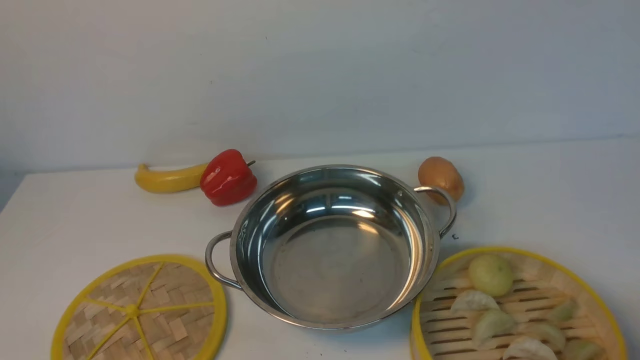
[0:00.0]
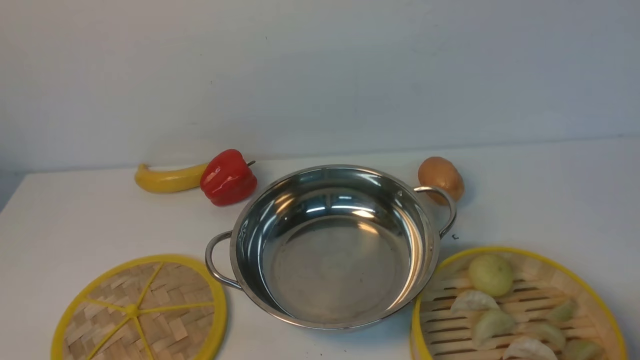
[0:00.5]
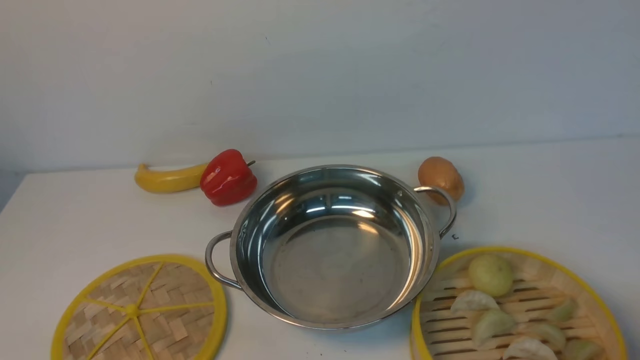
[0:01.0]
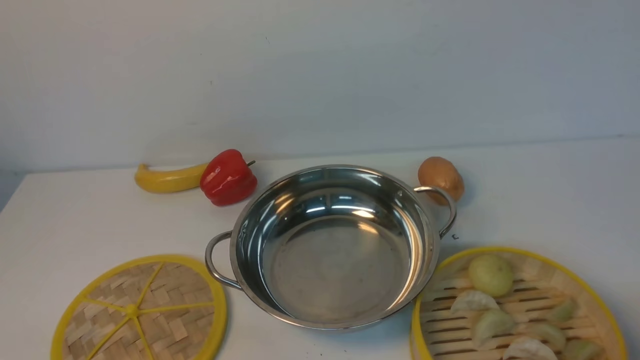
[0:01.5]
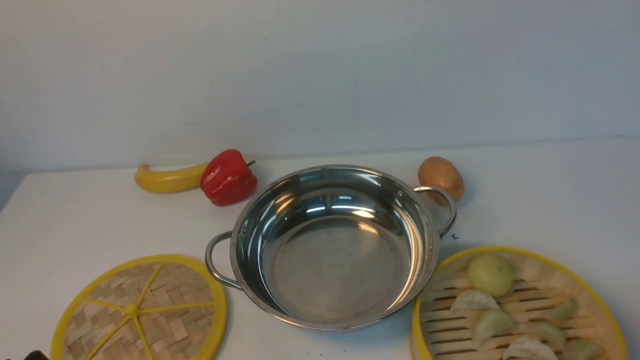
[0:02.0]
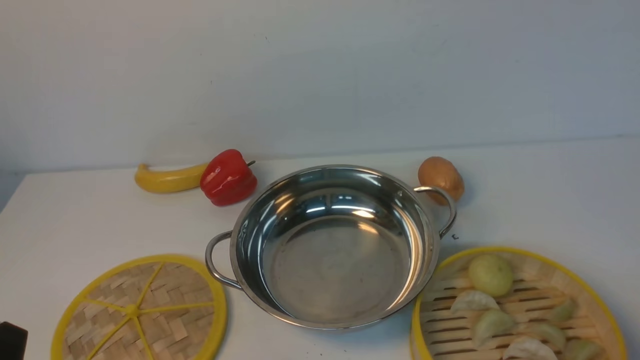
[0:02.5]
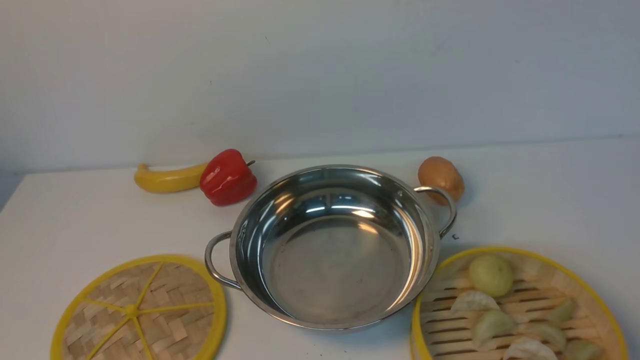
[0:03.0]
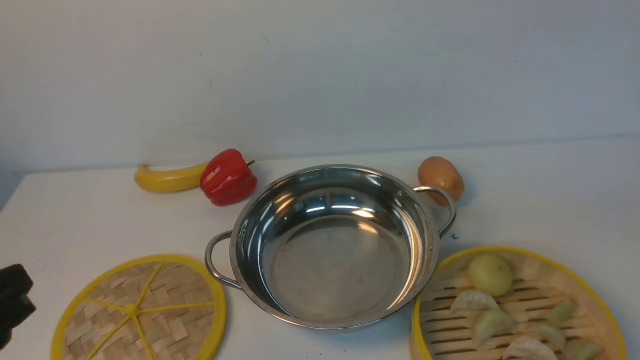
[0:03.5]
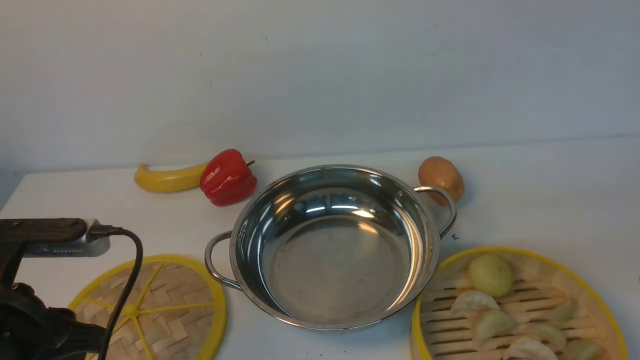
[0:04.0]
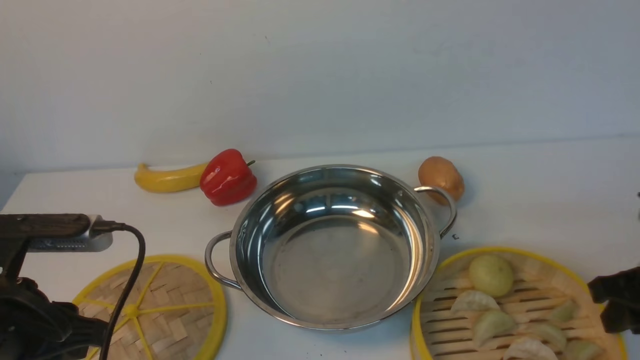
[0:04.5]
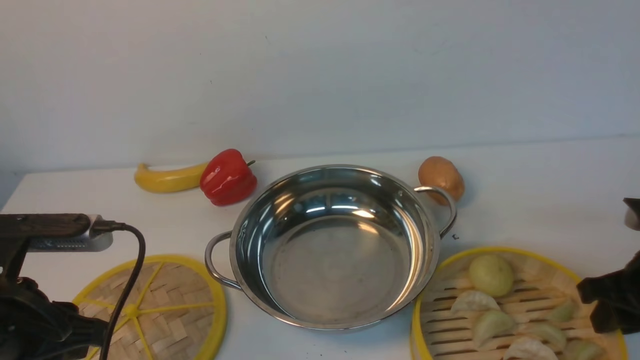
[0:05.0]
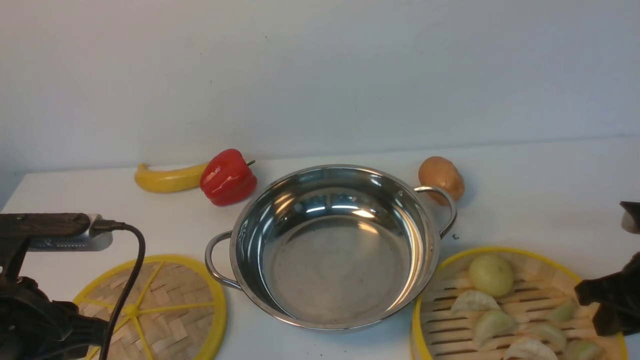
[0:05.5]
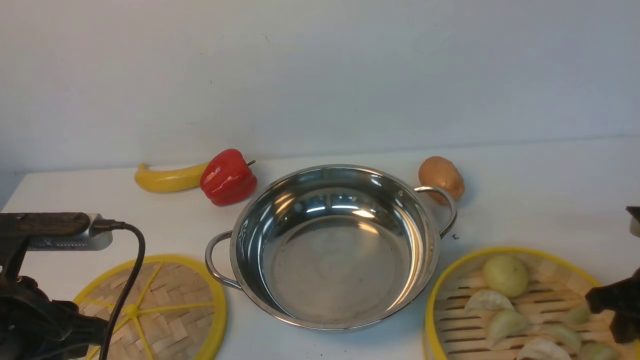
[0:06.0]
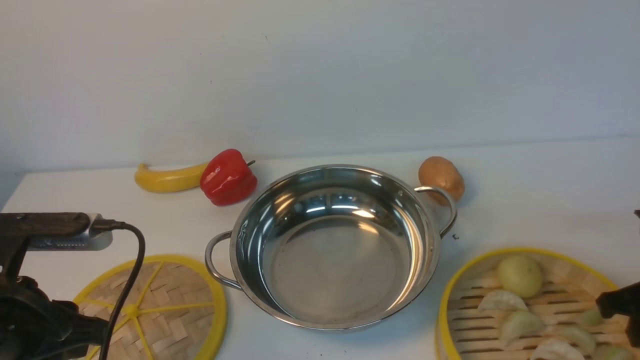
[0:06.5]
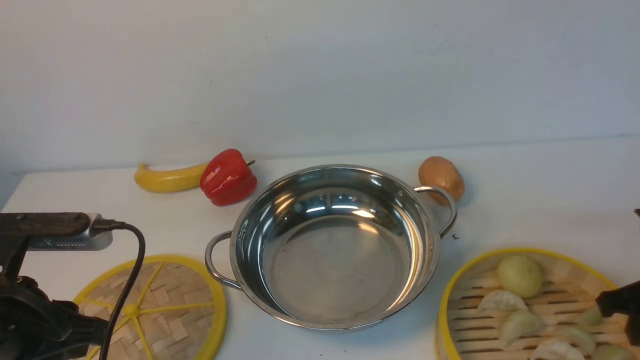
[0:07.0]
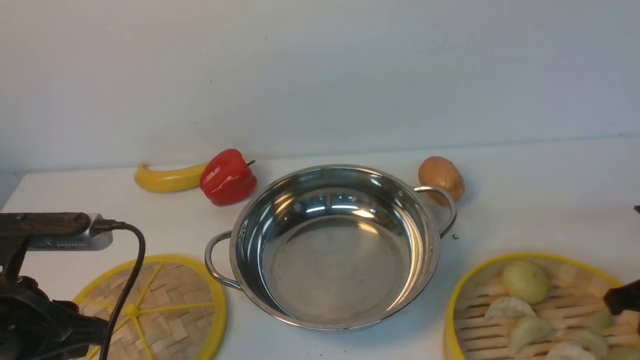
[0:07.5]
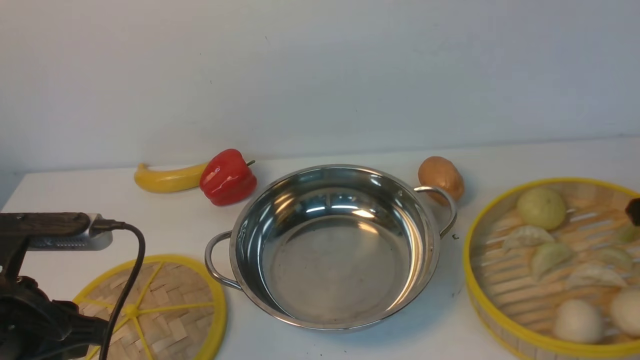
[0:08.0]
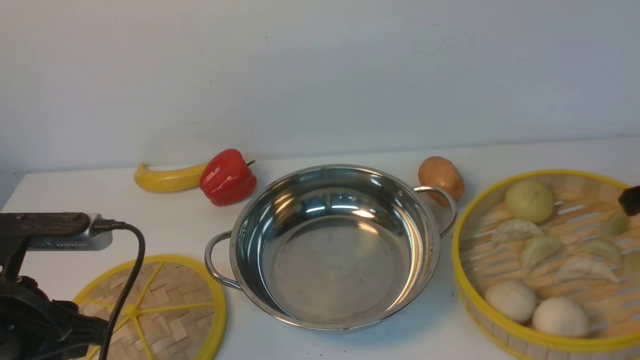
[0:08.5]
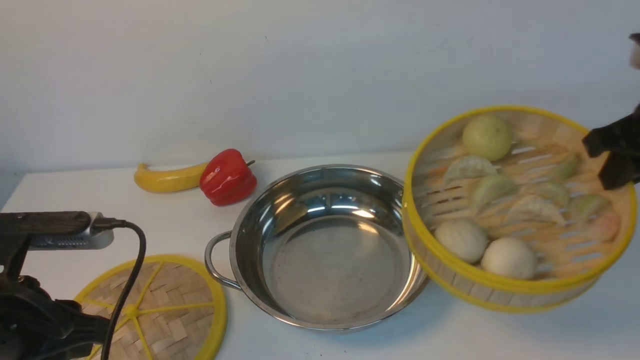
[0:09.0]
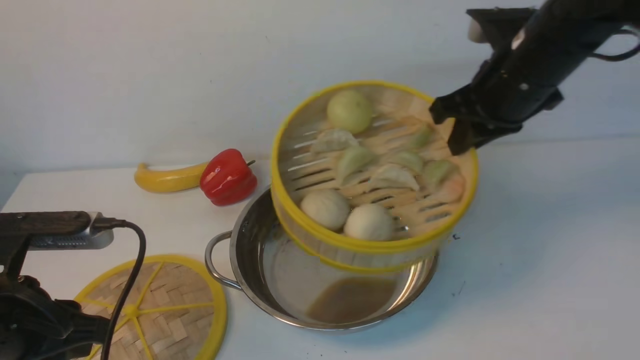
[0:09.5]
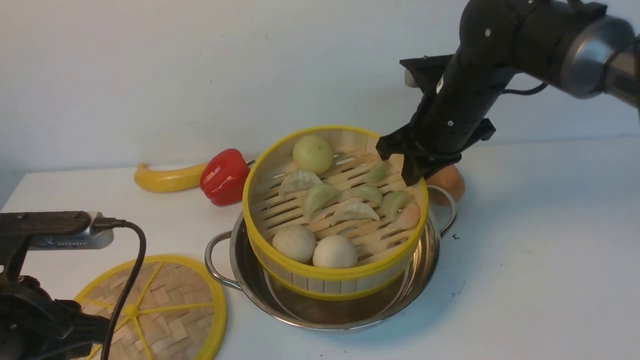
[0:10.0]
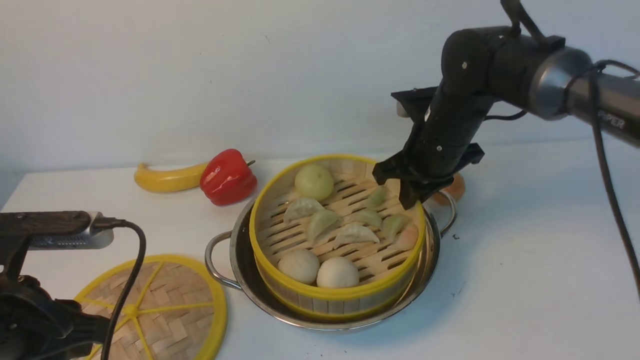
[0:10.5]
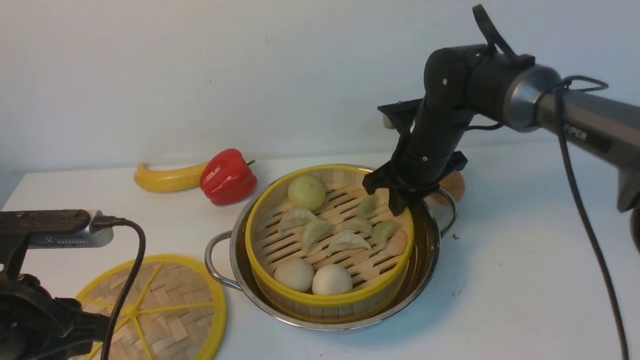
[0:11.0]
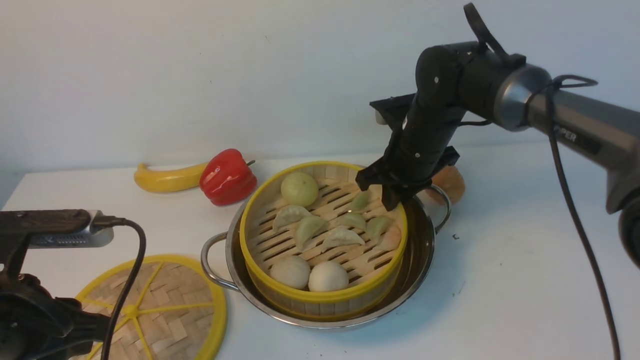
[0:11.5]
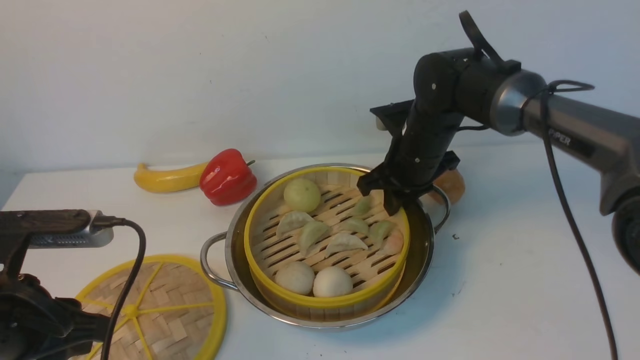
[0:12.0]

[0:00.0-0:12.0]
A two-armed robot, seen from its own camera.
Task of the whole recording: place the steamer in the pot on the white table, and put the lid on the steamer.
Step, 0:00.0 to 0:08.0: use the right arm to lift the steamer closest to it.
0:02.0 to 0:04.0: The left gripper goes roughly 15 cm forward and upward.
0:04.0 to 0:06.0: The right gripper is displaced downward and forward by roughly 10 cm.
0:06.0 to 0:08.0: The right gripper moves upward, approximately 10 cm.
0:08.0 to 0:10.0: The right gripper is displaced to the left and forward by roughly 25 cm.
0:10.0 to 0:12.0: The right gripper heads downward, covering approximately 5 cm.

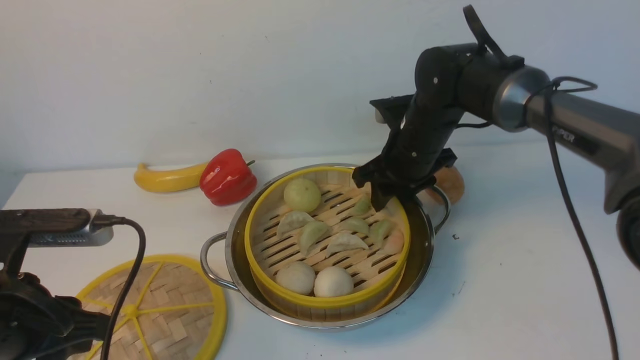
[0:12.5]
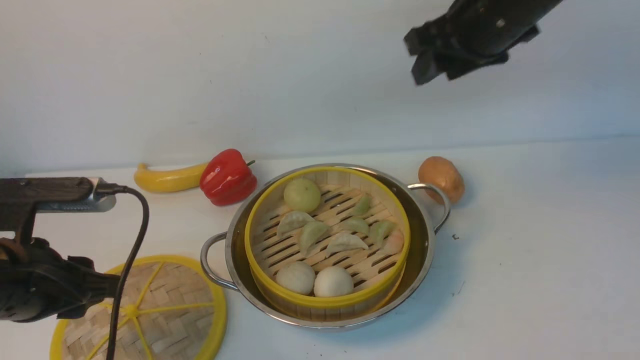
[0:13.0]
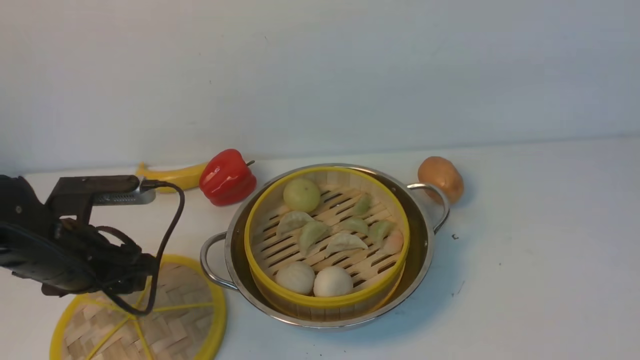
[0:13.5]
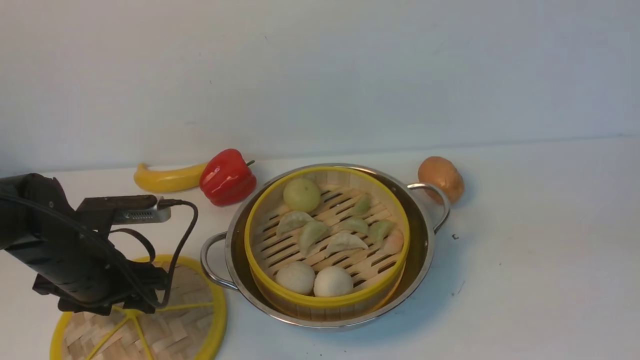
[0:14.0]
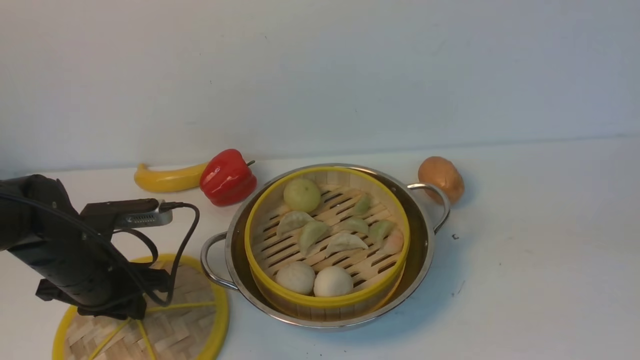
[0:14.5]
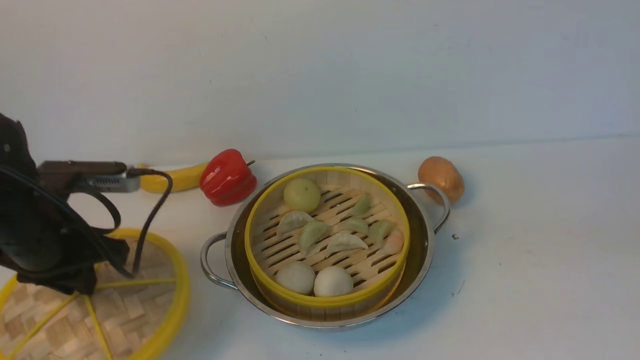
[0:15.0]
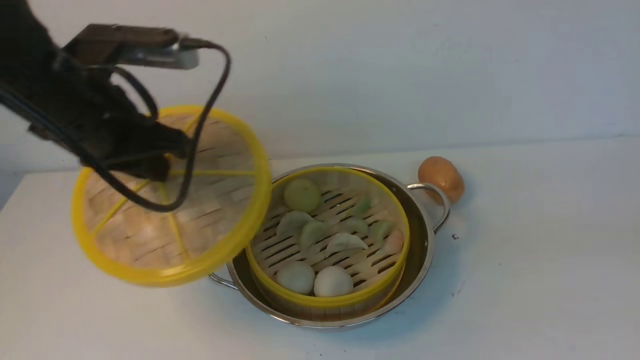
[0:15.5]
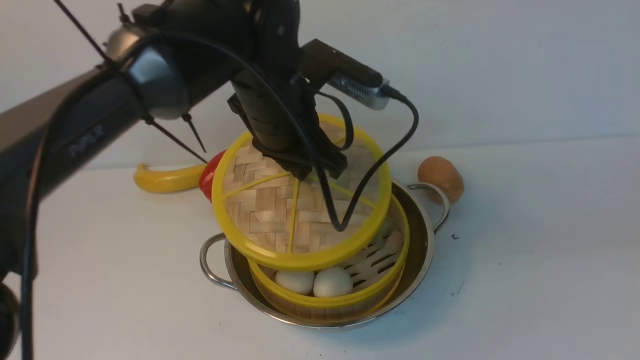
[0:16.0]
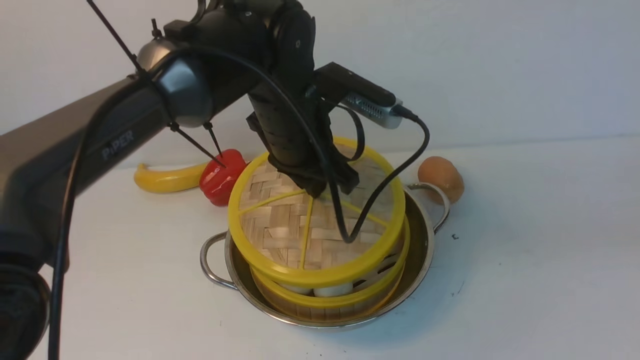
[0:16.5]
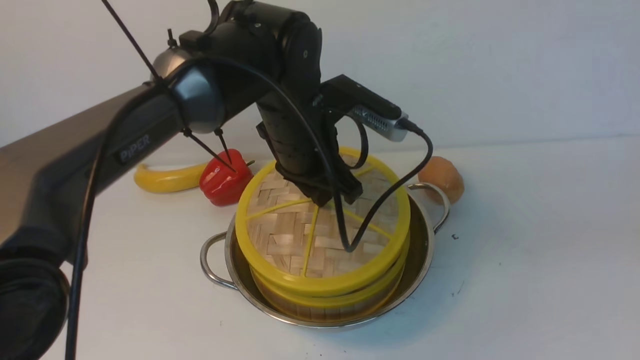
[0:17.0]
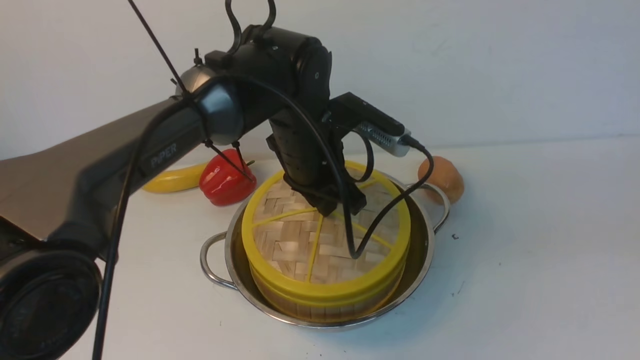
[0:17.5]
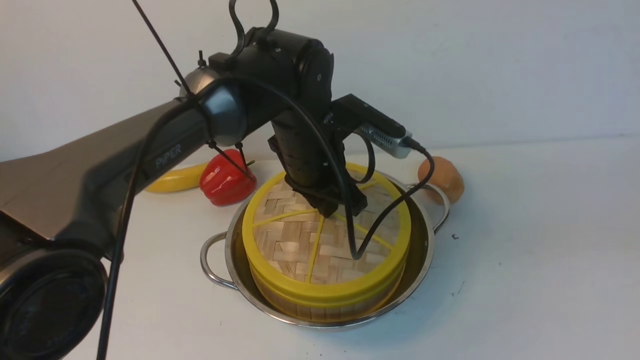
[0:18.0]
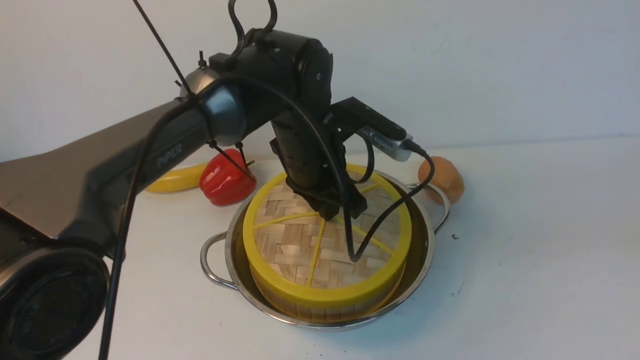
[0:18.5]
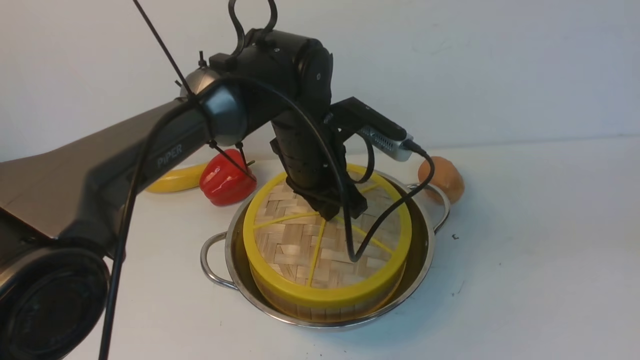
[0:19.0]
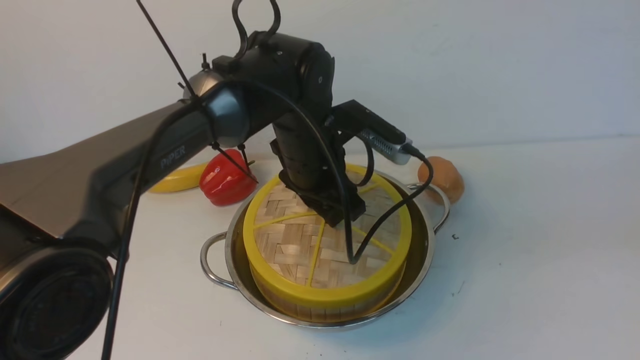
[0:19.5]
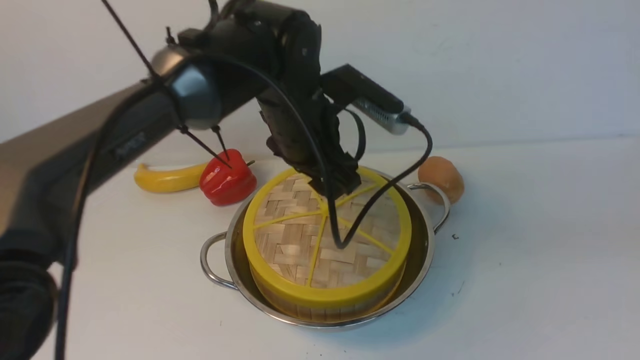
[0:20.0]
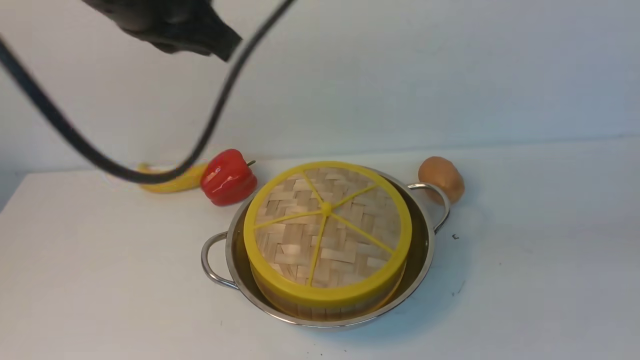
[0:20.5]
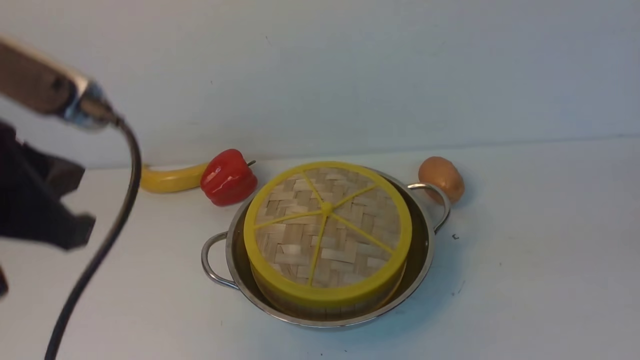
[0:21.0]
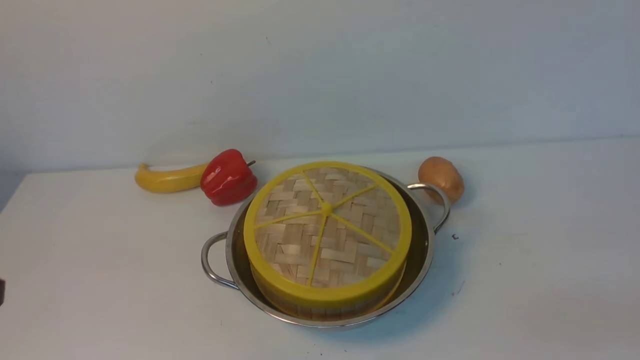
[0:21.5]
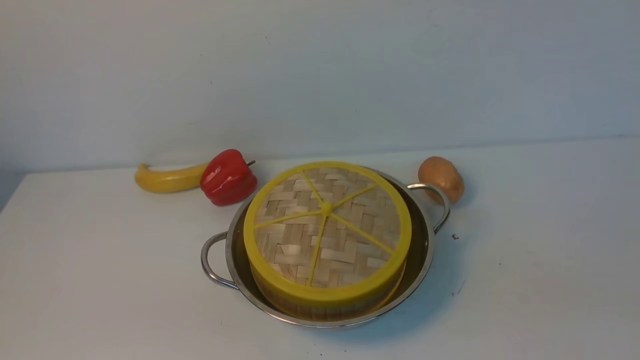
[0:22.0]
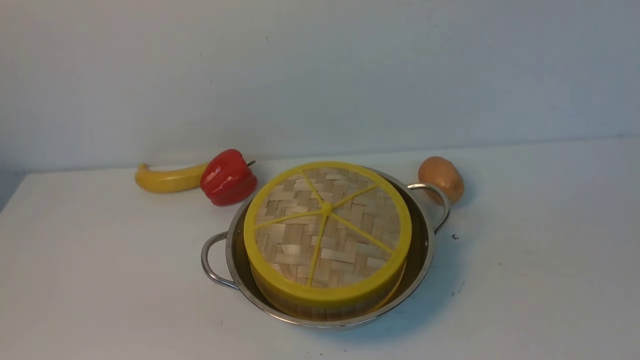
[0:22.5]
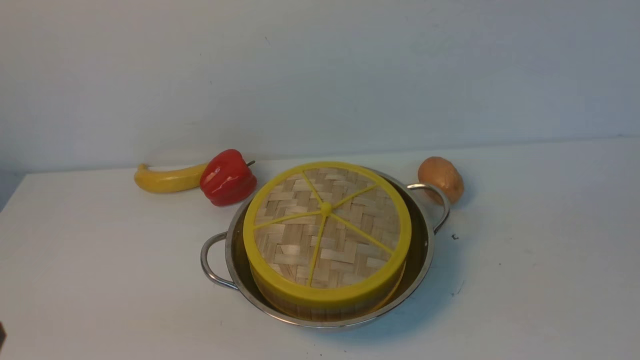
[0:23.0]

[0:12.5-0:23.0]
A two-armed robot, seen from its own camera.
Task of the whole recording: place the steamer in the pot on the white table, and put the lid on the steamer.
Step, 0:13.0 to 0:15.0: use the left arm to lift the lid of the steamer.
Step, 0:15.5 to 0:20.0: use the left arm to place the steamer lid on the steamer.
0:12.5 to 0:14.5: The left gripper shifts about 15 cm forward and downward, and opens, then closes once more, while the right gripper moves backward, to the right and upward, roughly 40 cm.
0:14.5 to 0:16.5: The left gripper heads to the right and upward, covering approximately 25 cm.
0:19.0 to 0:21.0: The left gripper travels backward, to the left and upward by some 35 cm, and opens, then closes once more.
0:21.0 to 0:23.0: The left gripper moves downward and backward, about 20 cm.
